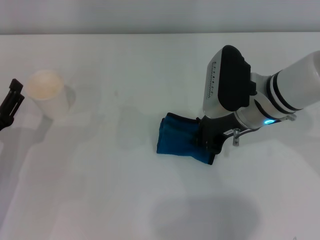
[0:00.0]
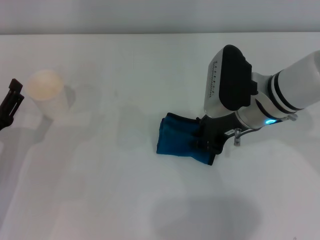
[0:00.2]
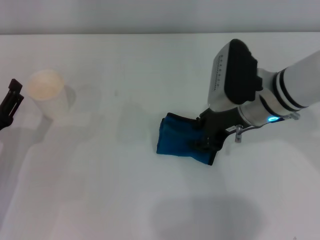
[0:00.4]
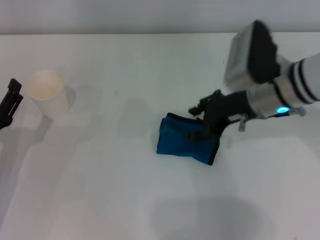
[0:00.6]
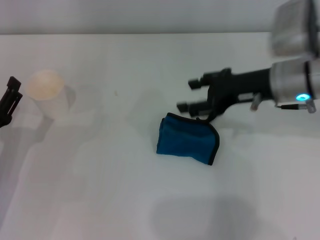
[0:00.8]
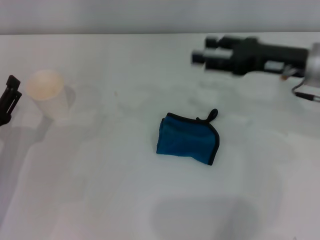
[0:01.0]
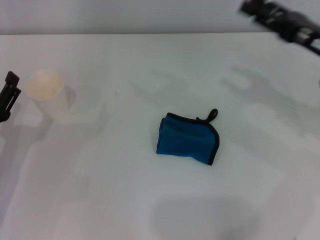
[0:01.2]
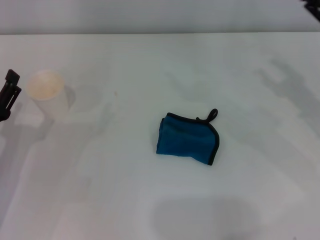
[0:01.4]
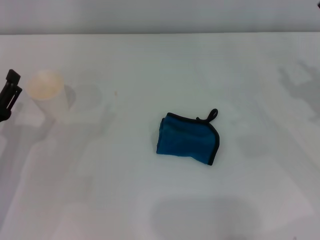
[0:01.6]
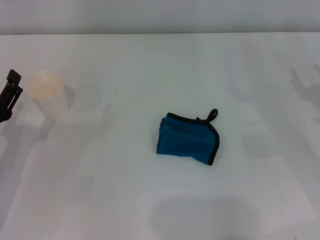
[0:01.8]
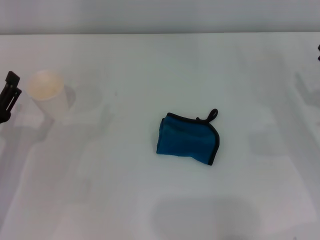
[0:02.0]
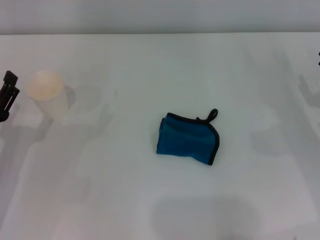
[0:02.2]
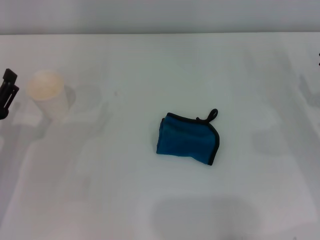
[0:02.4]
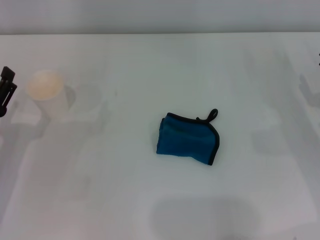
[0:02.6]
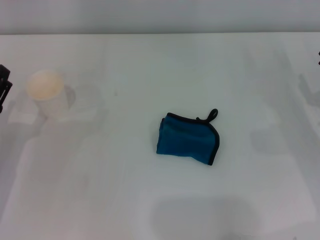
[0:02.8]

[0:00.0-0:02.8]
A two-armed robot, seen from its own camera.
0:00.0 to 0:01.4: The right gripper travels to the right by some 15 cm, and opens its fingers.

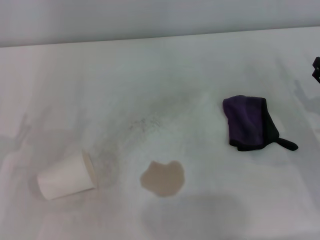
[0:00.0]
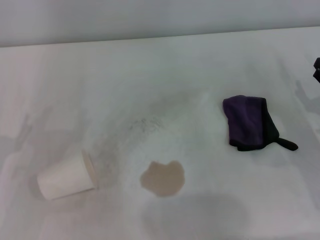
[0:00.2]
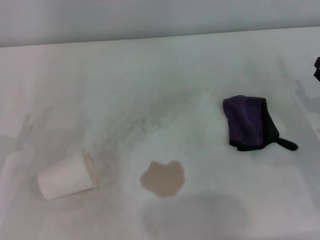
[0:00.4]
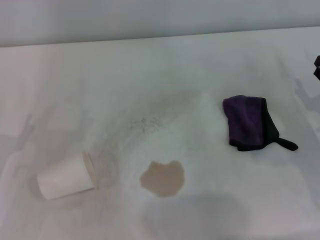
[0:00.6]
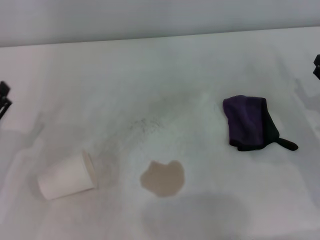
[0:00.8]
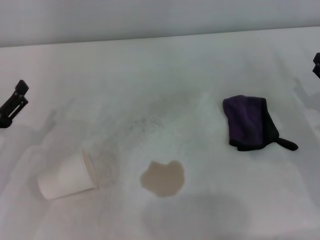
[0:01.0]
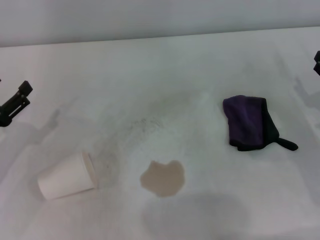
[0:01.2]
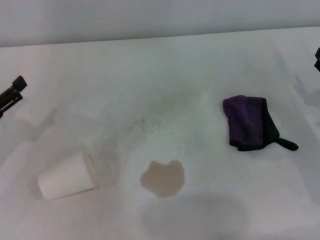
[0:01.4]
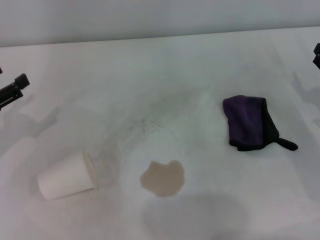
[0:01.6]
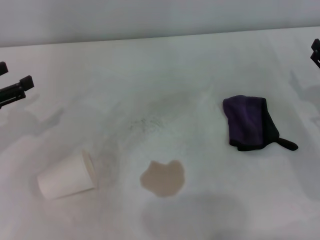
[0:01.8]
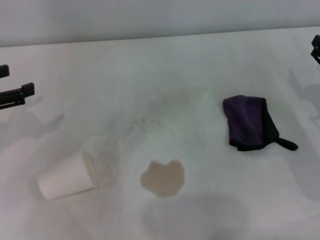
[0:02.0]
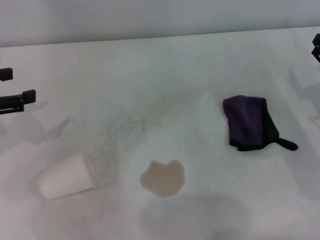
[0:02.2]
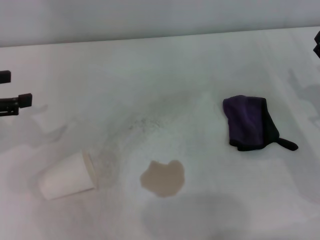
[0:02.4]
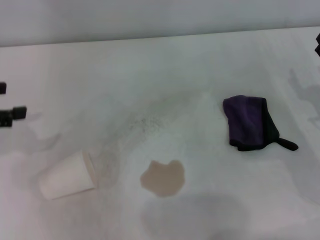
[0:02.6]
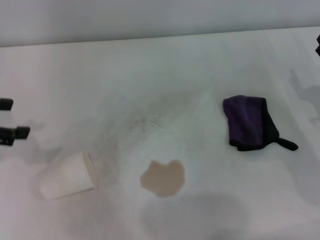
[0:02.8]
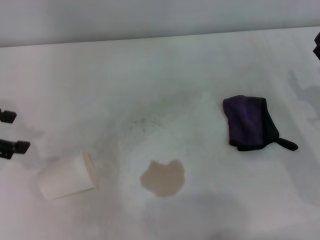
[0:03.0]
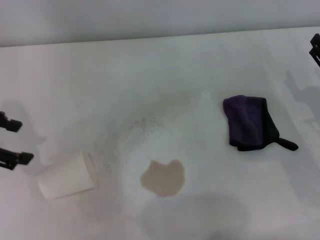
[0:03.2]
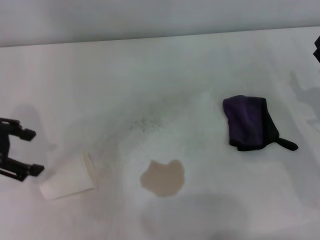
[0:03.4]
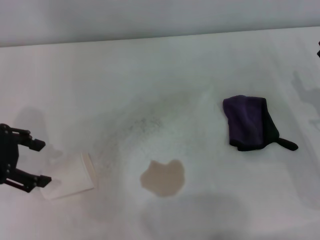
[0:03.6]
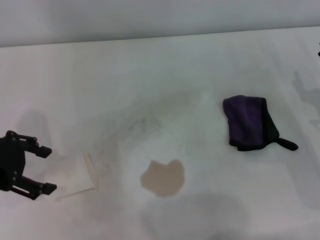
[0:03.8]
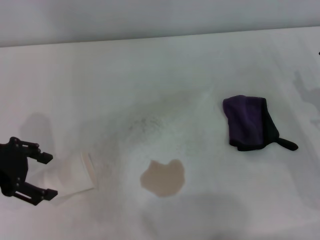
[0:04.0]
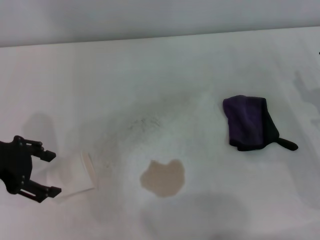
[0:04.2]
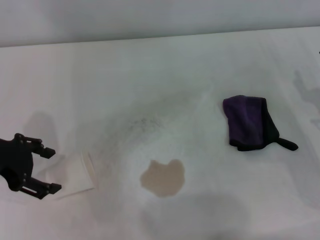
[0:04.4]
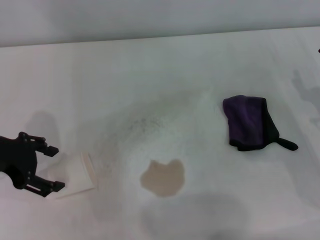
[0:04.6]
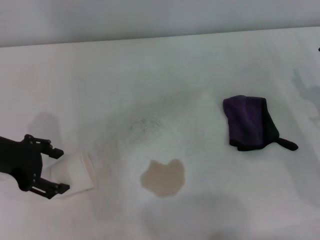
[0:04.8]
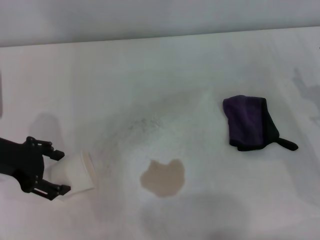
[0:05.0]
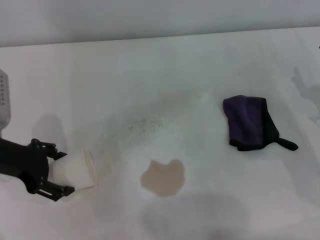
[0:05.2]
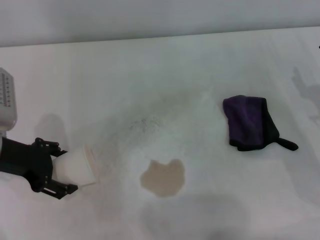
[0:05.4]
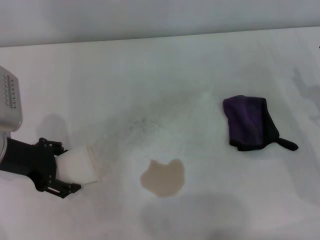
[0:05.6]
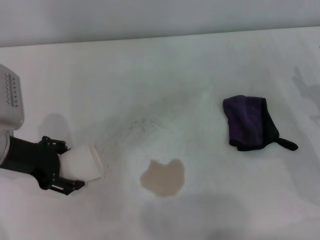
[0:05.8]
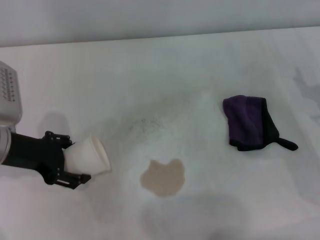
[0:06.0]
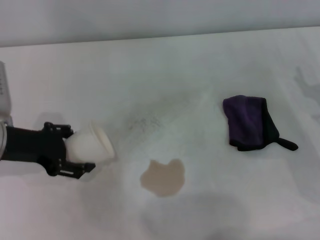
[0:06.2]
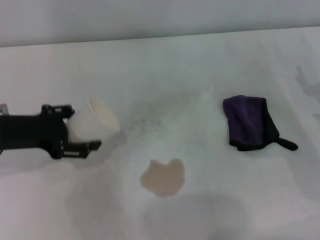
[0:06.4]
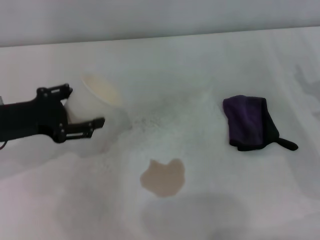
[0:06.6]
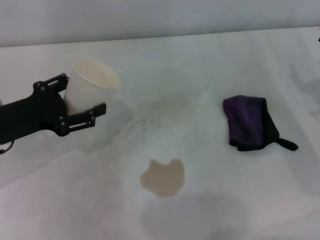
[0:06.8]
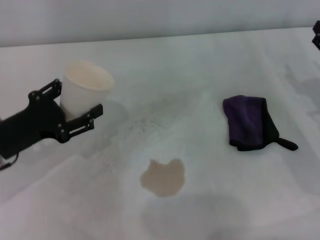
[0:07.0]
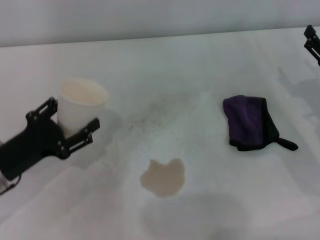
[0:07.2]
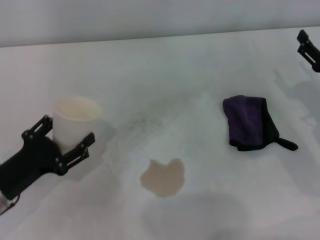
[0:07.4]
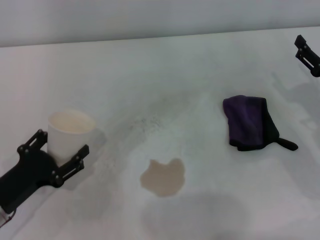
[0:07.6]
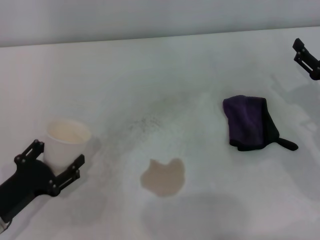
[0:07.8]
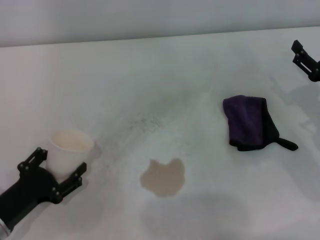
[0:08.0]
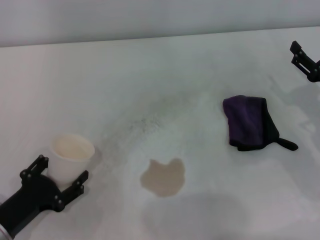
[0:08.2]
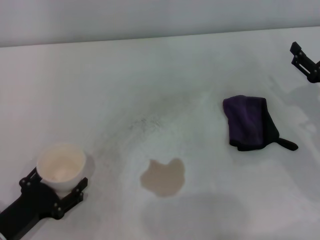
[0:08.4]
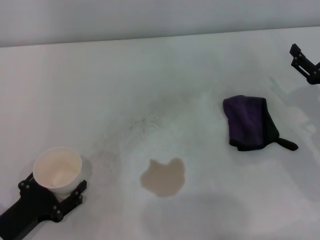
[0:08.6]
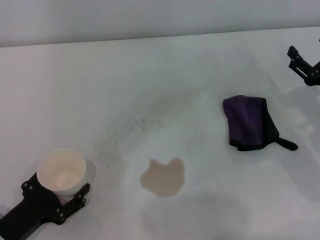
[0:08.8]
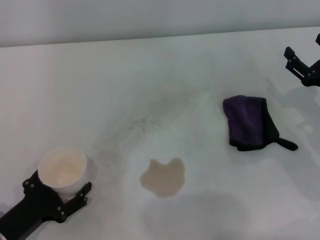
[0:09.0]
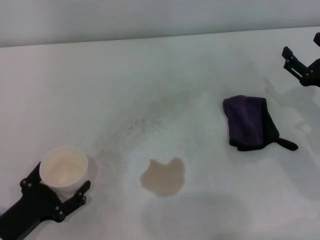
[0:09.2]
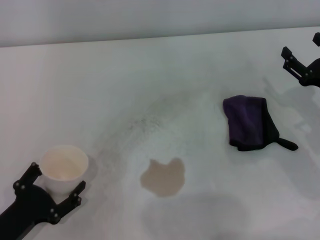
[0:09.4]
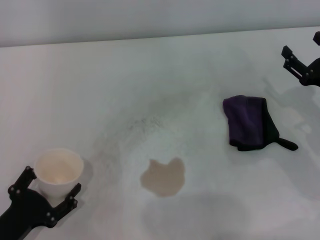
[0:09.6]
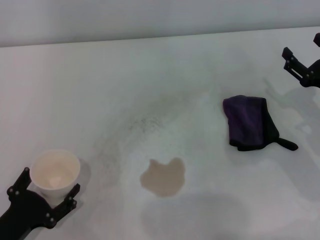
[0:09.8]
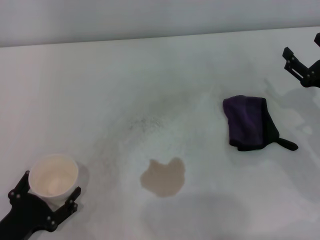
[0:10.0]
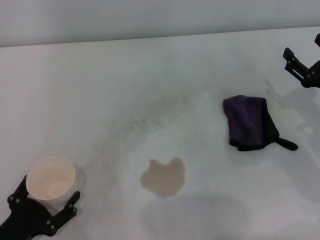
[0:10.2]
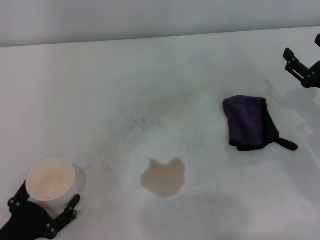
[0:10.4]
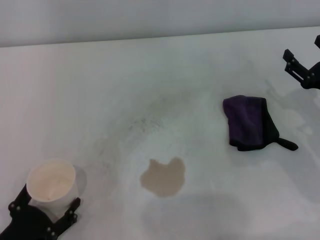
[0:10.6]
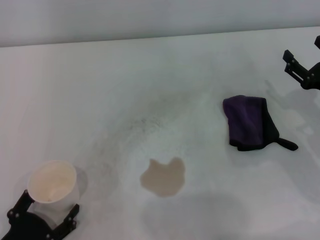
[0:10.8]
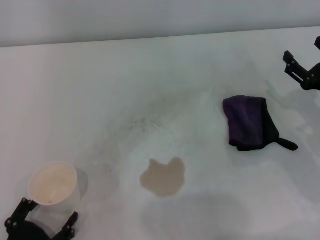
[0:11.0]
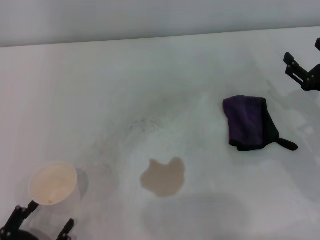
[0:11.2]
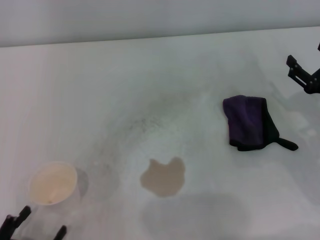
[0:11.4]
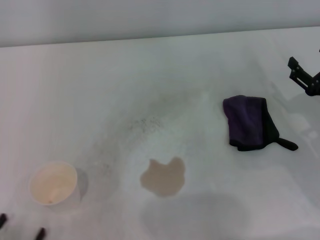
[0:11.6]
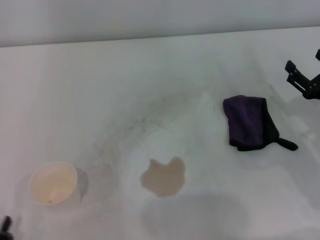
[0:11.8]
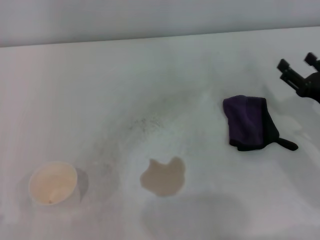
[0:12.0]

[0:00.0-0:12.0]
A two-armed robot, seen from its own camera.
Step, 0:00.0 to 0:05.6: Grasp the paper cup with the left gripper.
Step, 0:05.8 to 0:10.6: Stand the paper cup upright with the left gripper.
0:00.0 to 0:01.6: The left gripper moves forward and upward, approximately 10 cm.
0:01.6 to 0:03.0: The left gripper goes about 10 cm upward.
0:03.0 to 0:04.4: The left gripper travels to the right and downward by some 5 cm.
0:04.4 to 0:06.0: The grippers stay close to where they were, moving slightly.
0:06.0 to 0:07.6: The left gripper moves backward and downward, about 15 cm.
0:07.6 to 0:09.0: The left gripper shifts by about 5 cm.
0:09.0 to 0:10.4: The grippers stay close to where they were, moving slightly.
0:10.4 to 0:12.0: The left gripper travels backward by about 5 cm.

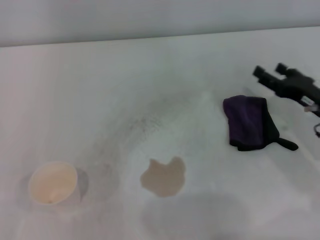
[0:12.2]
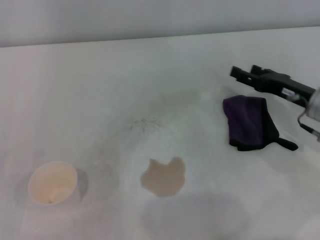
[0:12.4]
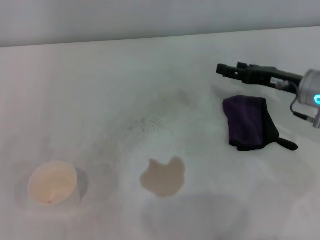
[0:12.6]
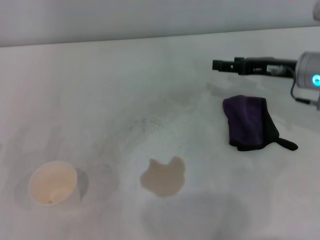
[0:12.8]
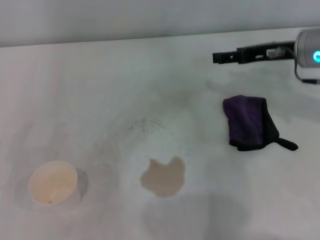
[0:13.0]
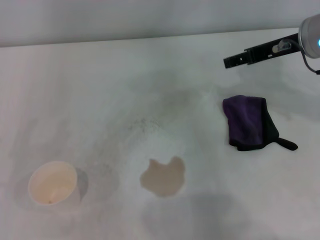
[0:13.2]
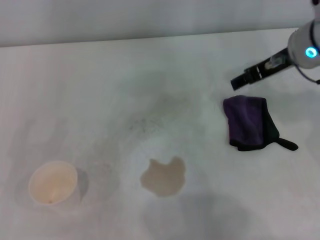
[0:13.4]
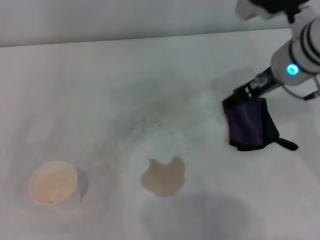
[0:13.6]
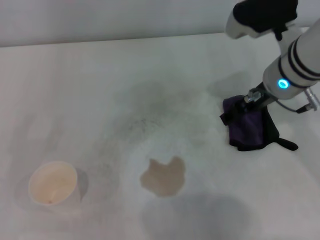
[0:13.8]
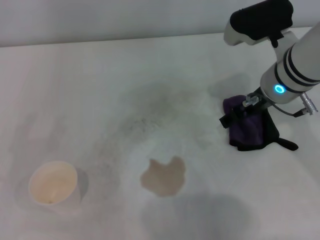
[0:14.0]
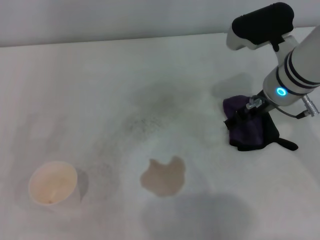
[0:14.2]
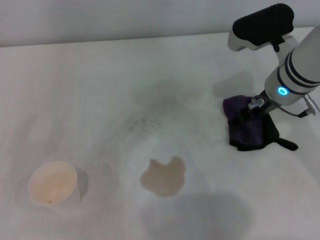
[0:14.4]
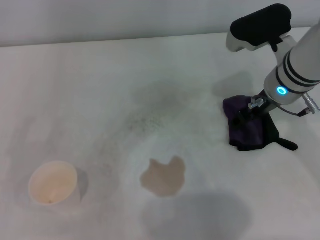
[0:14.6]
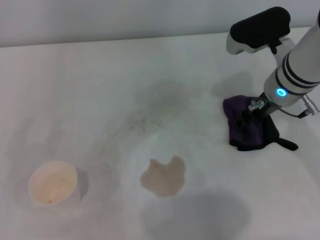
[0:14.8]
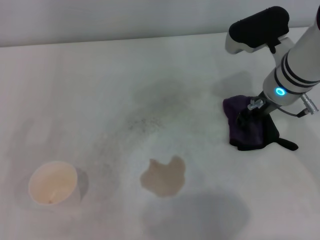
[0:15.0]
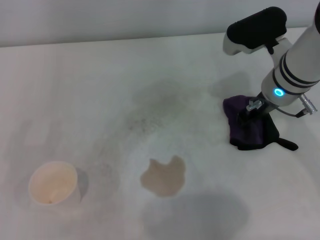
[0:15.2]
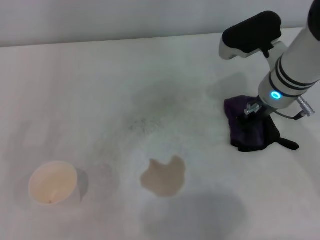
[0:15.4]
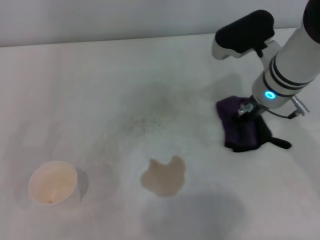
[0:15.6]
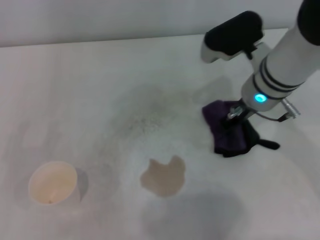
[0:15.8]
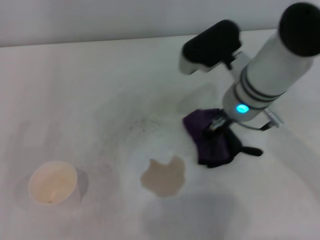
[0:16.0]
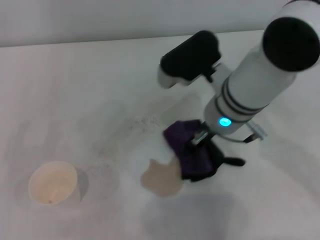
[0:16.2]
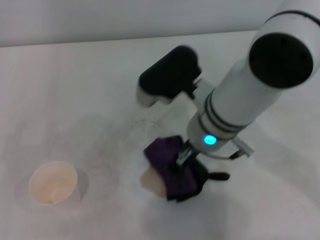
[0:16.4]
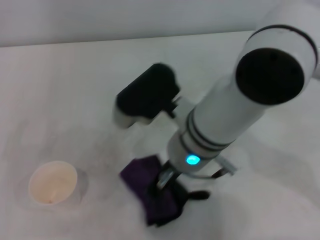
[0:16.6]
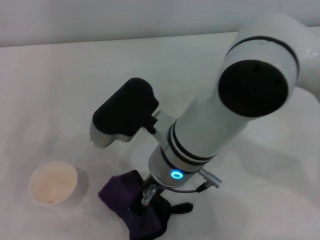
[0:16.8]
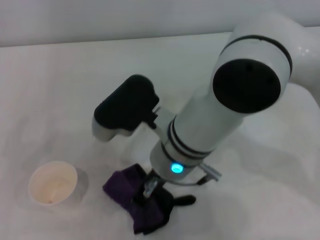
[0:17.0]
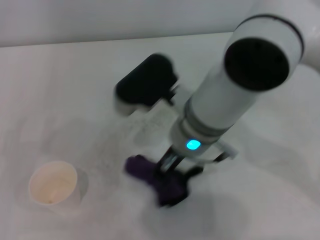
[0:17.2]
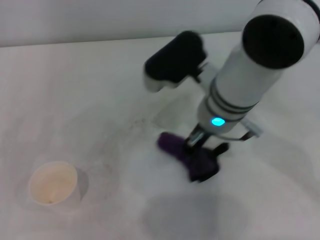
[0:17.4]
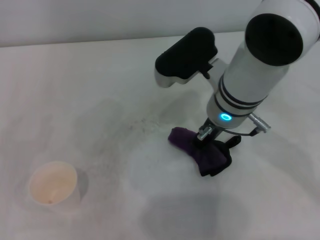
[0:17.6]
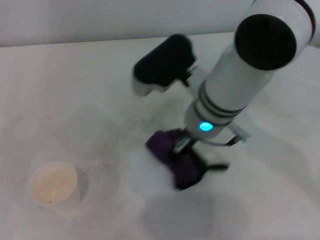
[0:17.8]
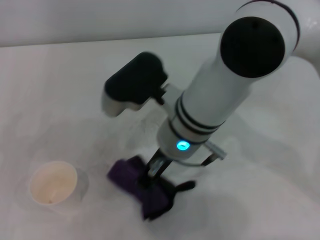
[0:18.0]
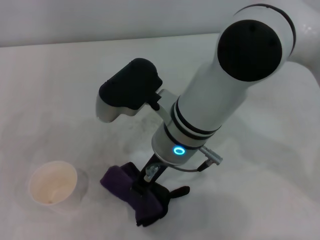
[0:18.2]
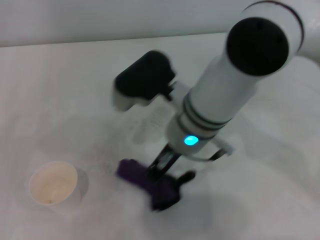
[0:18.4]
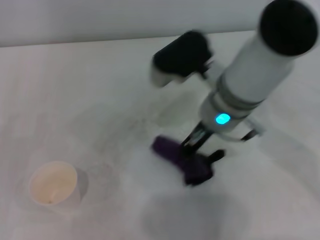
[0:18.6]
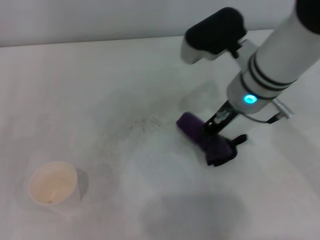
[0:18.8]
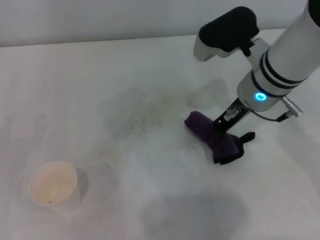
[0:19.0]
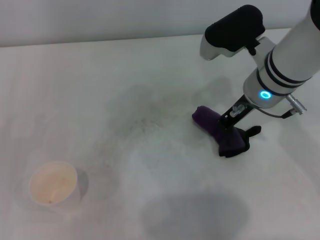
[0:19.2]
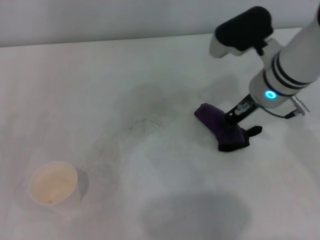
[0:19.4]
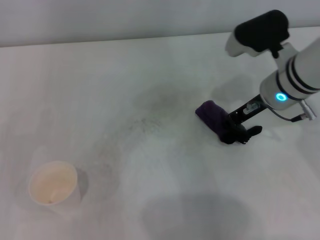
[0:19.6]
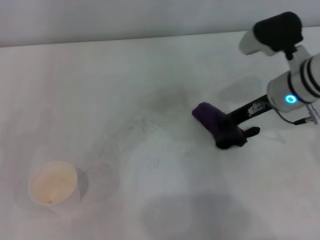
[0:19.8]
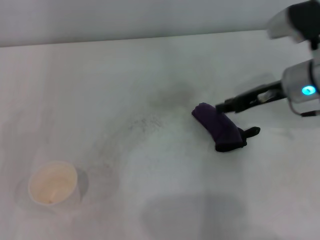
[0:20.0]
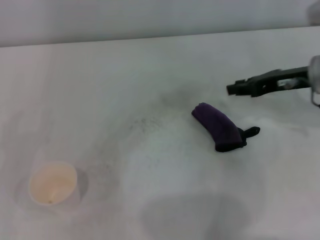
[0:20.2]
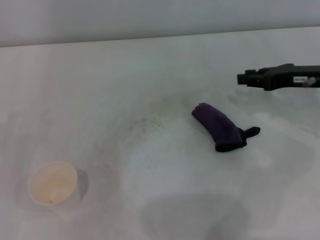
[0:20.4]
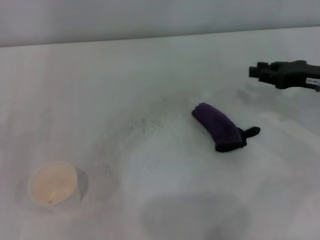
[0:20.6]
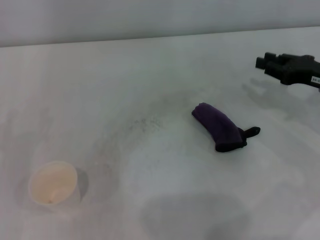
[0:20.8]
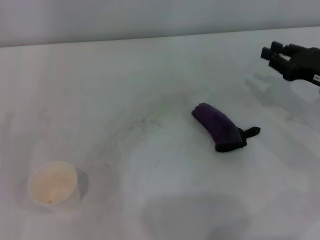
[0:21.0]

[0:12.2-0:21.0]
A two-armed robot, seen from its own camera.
Step, 0:12.2 to 0:15.0: Grasp the rag with the right gripper.
Step, 0:15.4 to 0:18.6: Wipe the stains off the table with the right gripper.
Step, 0:19.0 to 0:19.8: Place the rag on the table with the right gripper.
0:12.2 to 0:13.6: The right gripper goes about 20 cm upward, to the left and forward.
0:13.6 to 0:15.2: The right gripper heads downward, covering about 5 cm, and closes its fingers.
0:15.2 to 0:16.6: The right gripper travels to the left and backward by approximately 15 cm, and closes.
0:18.0 to 0:19.6: The right gripper moves to the right, approximately 15 cm.
0:19.6 to 0:21.0: The right gripper moves to the right, roughly 15 cm.
